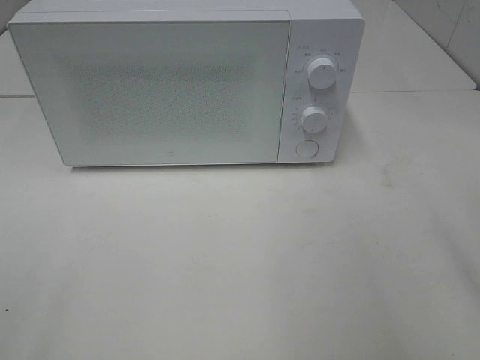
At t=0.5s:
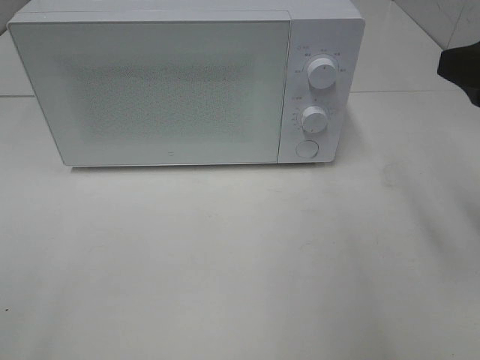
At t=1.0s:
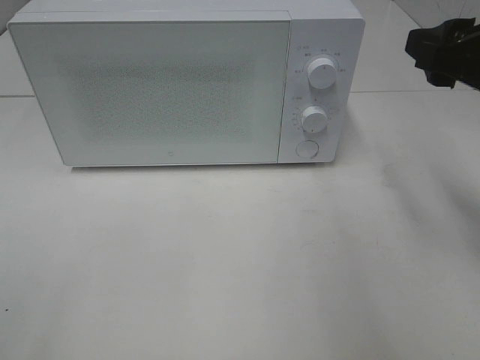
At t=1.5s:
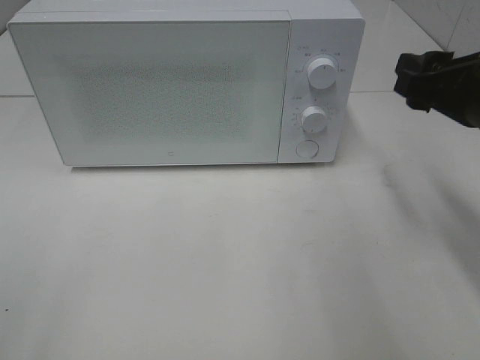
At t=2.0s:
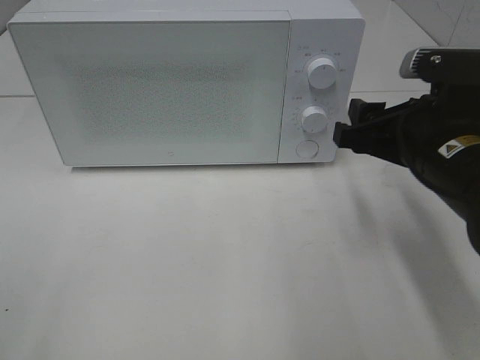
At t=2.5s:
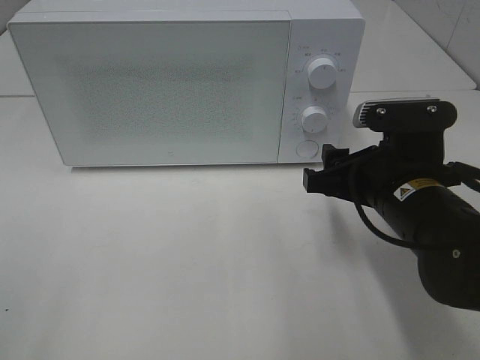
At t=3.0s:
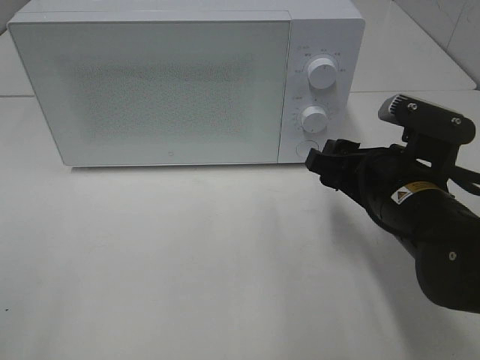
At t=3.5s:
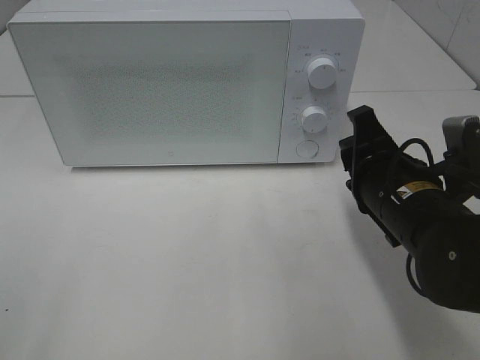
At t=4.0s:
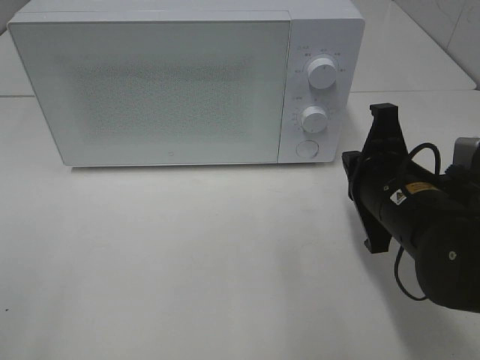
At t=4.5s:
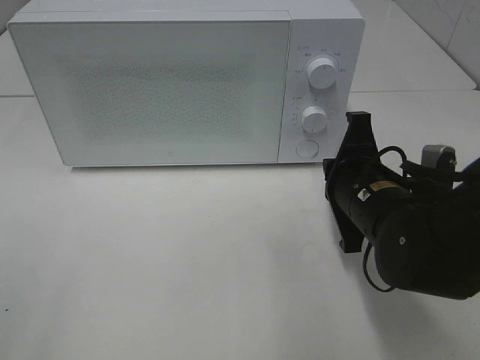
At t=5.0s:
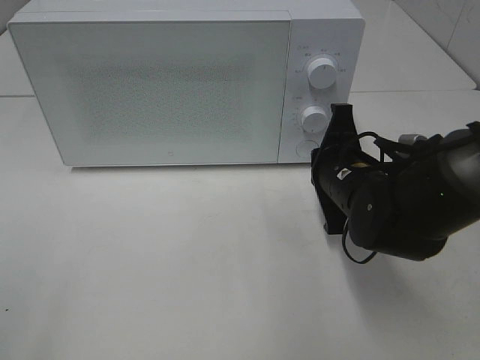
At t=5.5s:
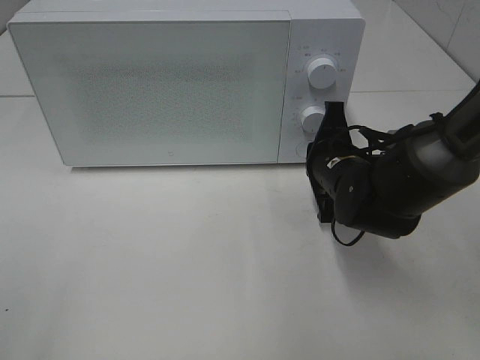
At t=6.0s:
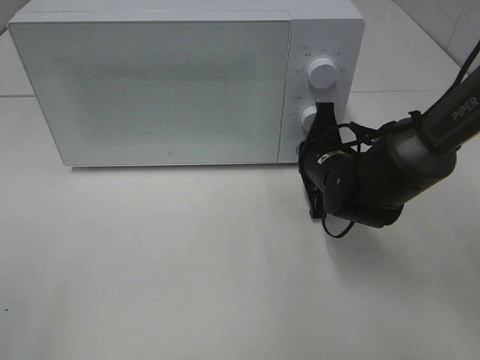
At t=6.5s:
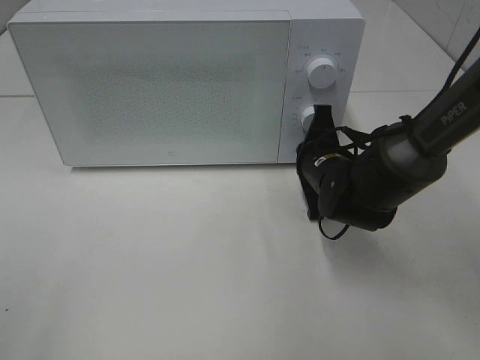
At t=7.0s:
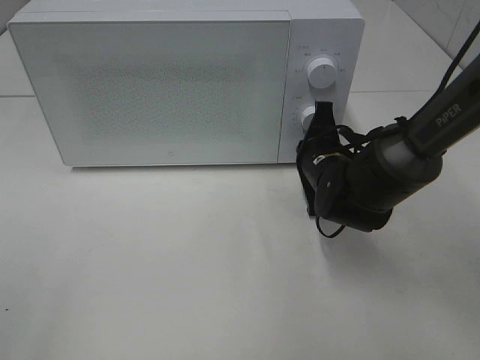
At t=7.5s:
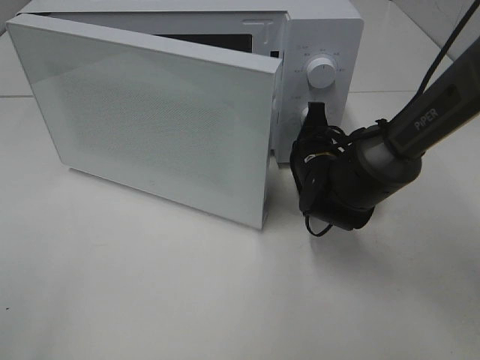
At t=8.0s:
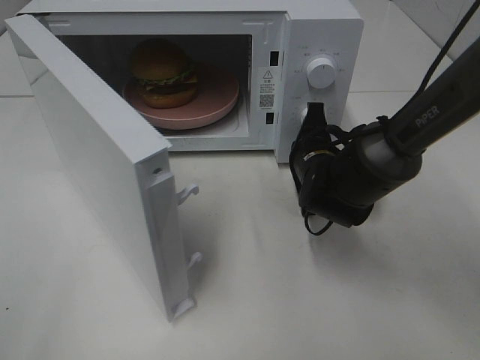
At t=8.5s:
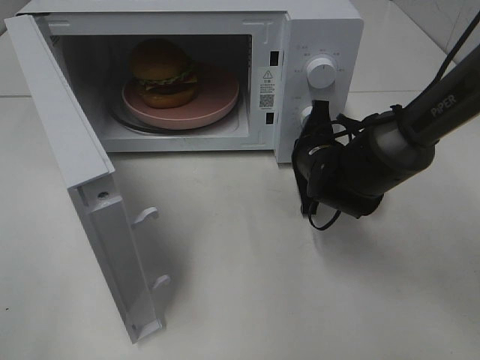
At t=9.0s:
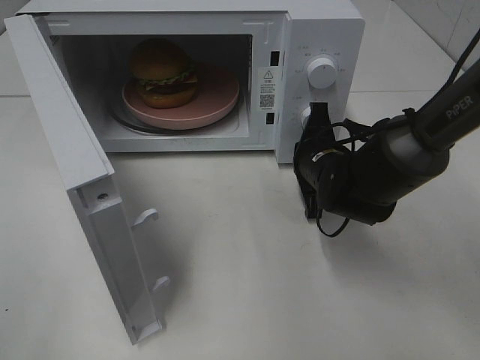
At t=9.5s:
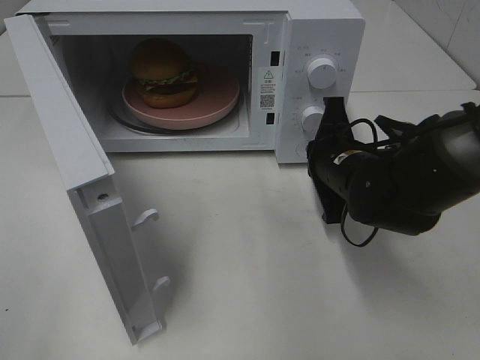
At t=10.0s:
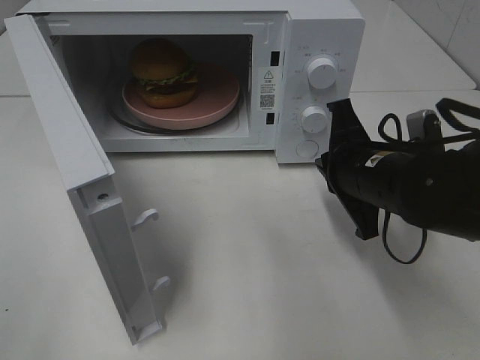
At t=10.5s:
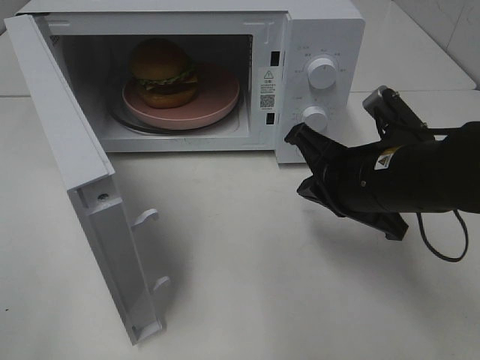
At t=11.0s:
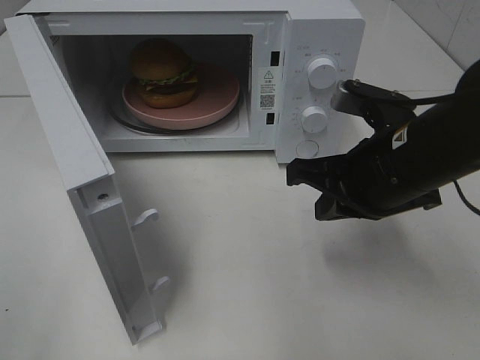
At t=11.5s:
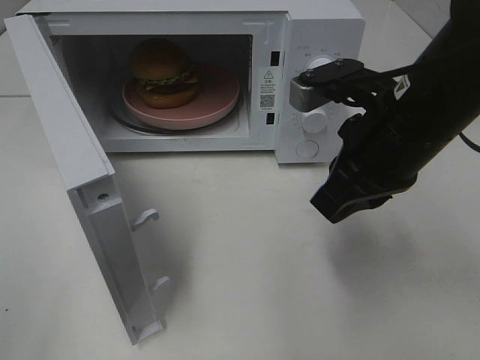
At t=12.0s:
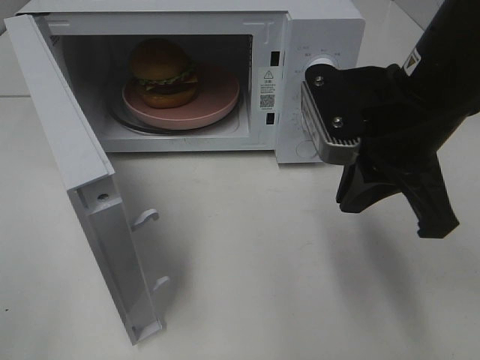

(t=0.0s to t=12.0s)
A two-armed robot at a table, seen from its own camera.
Task of the whole recording: Heat the burger.
Step, t=0.0s - t=9.5s: Right hand: press the switch.
t=0.0s - t=2.0s: The right gripper travels downward, forward and to the left by roughly 20 cm.
t=2.0s - t=4.0s: The right gripper changes place by some 5 cm, and closes its fingers.
t=4.0s - t=6.0s: The right gripper is displaced forward and downward by about 15 cm.
t=8.0s - t=10.0s: The right gripper moves backward and upward, about 10 cm.
t=10.0s - t=12.0s: The right gripper shifts some 10 cm upward.

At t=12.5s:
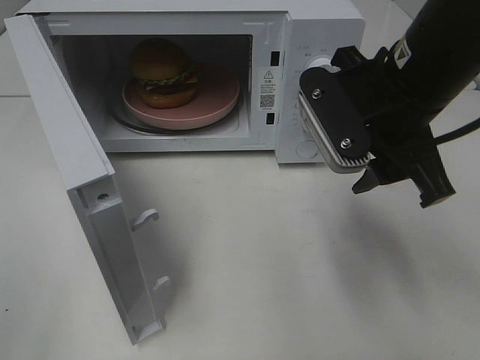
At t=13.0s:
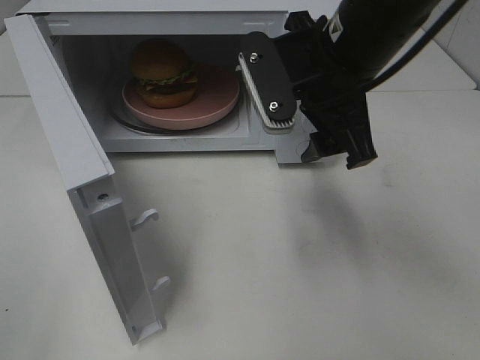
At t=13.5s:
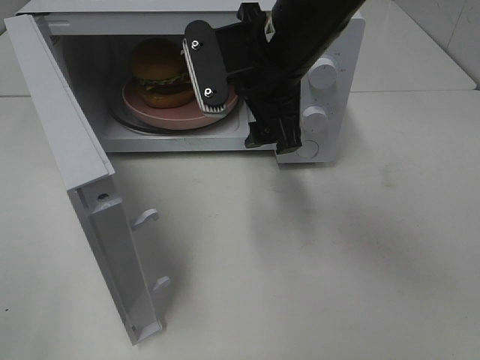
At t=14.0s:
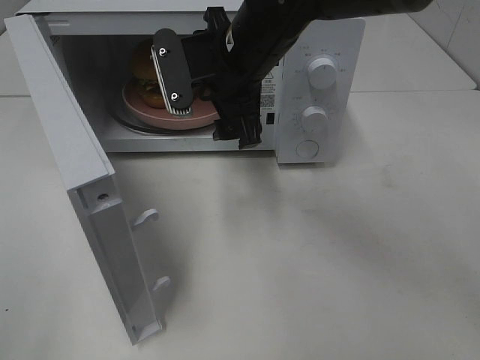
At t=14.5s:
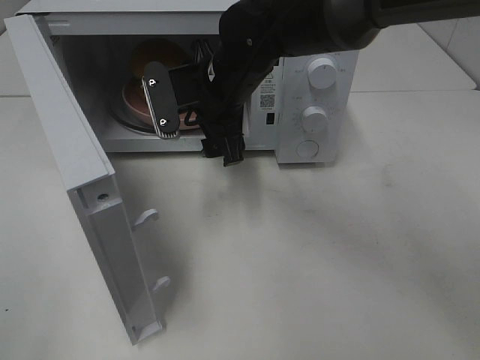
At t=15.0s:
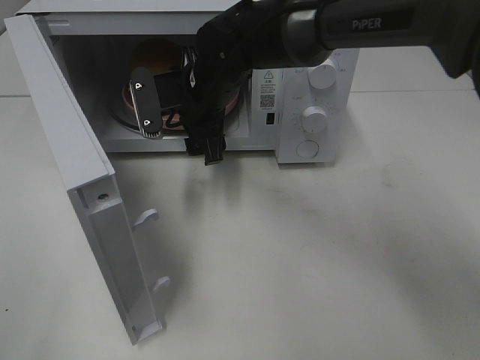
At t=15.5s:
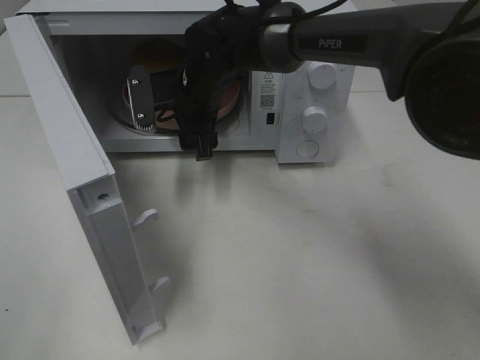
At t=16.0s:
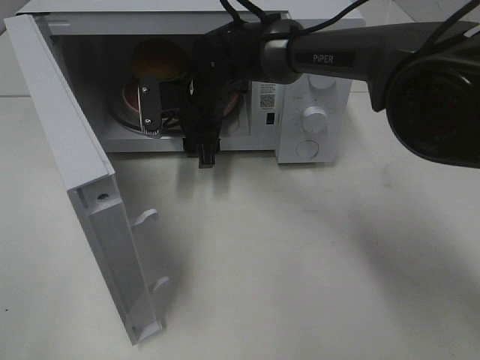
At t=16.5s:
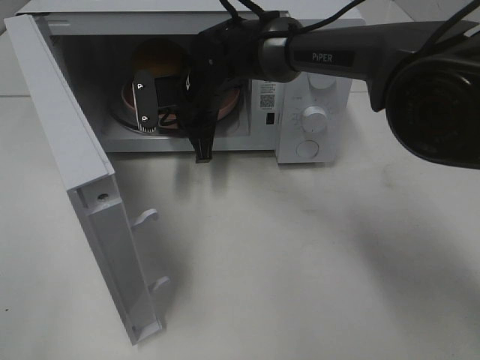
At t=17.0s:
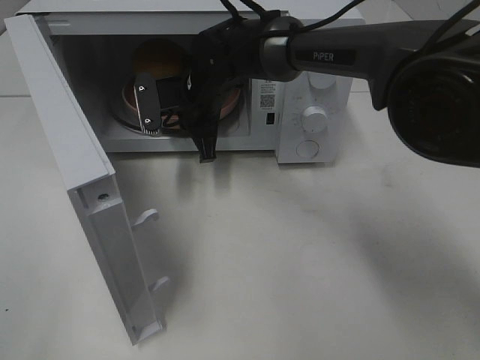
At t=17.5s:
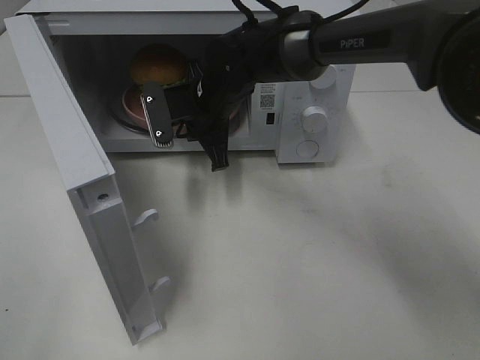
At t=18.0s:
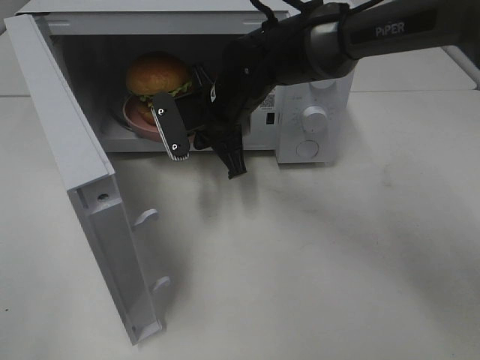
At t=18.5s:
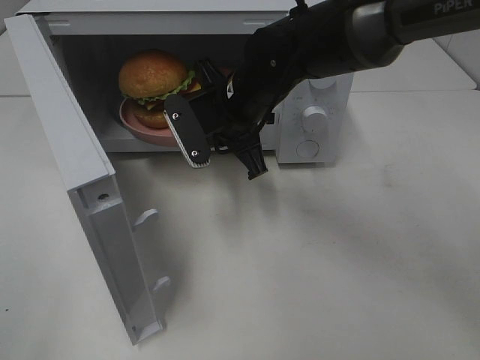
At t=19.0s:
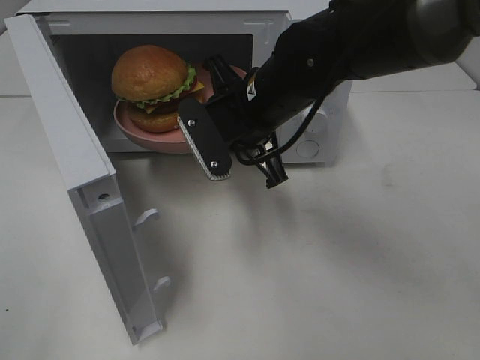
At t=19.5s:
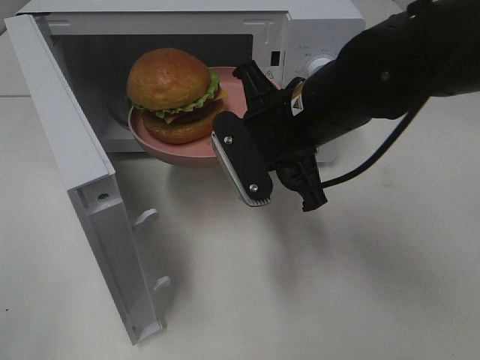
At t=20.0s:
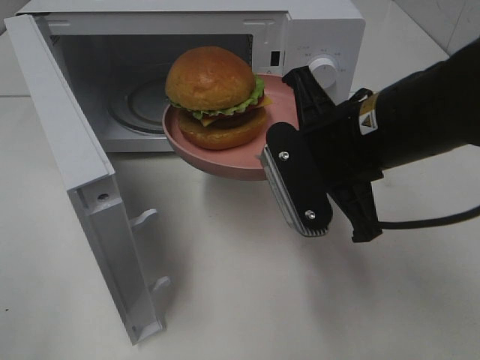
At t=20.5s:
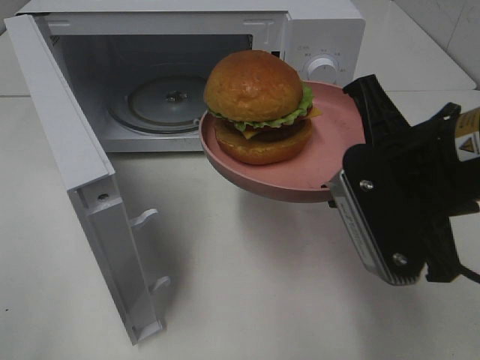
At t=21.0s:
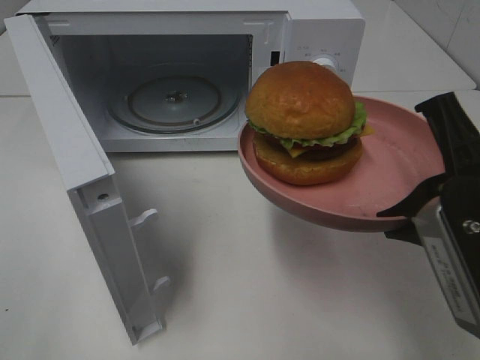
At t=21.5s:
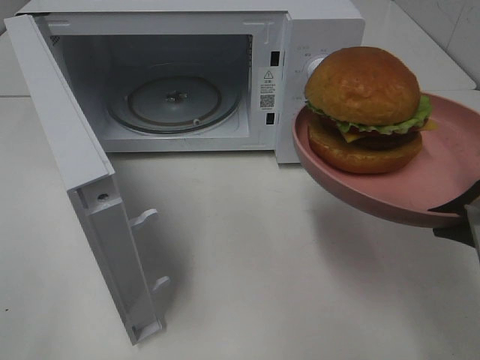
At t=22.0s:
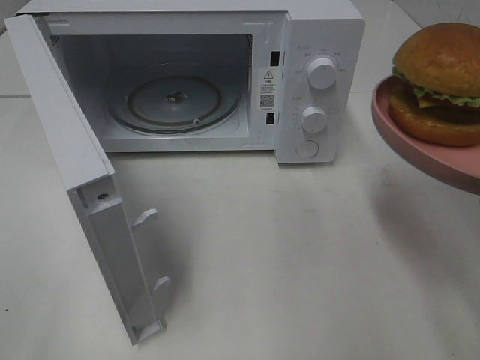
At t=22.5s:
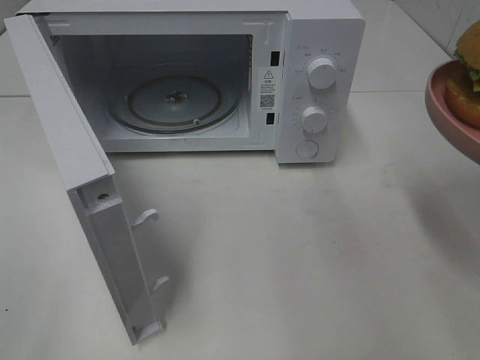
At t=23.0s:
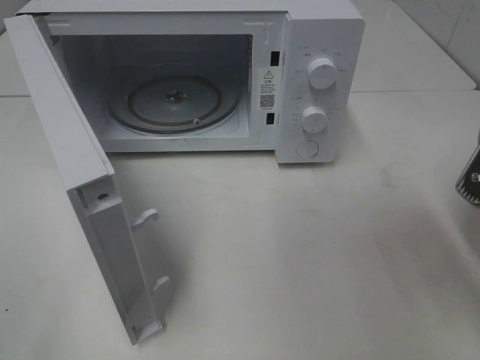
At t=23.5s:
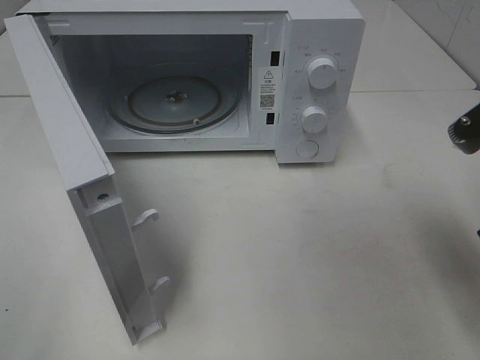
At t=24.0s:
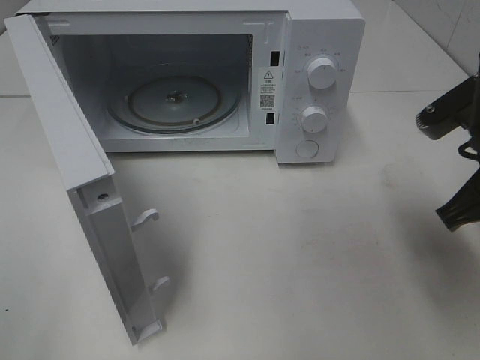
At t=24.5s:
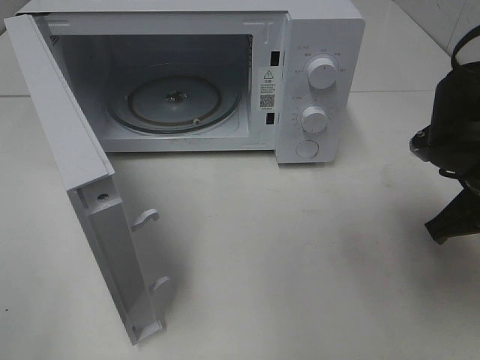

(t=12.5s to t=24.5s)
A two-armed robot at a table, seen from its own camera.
Task of the whole recording: Heat the burger.
Step, t=12.5s - t=17.0s: Right hand: grab the plate with the hamburger.
t=12.5s - t=14.5s: The right gripper moves to the left, forward and downward, about 20 cm.
t=14.5s - t=16.5s: The right gripper is displaced forward and downward by approximately 10 cm, and closes up.
t=16.5s - t=18.5s: The right gripper goes approximately 10 cm backward and to the right.
t=18.5s - t=20.5s: The right gripper is displaced backward and to the right by approximately 25 cm.
t=20.5s - t=22.5s: The right gripper heads to the right, covering some 10 cm.
t=22.5s - t=24.5s: The right gripper moves forward and downward, roughly 15 cm.

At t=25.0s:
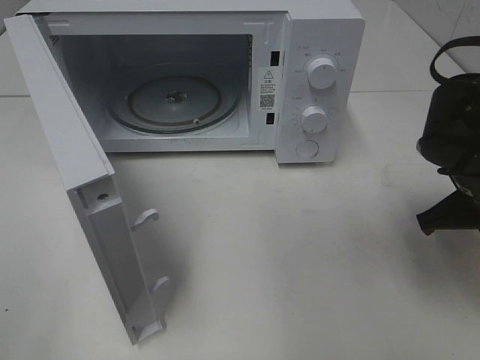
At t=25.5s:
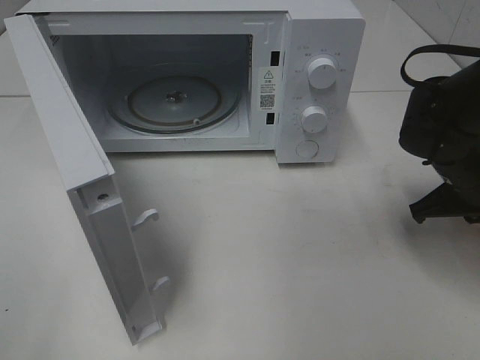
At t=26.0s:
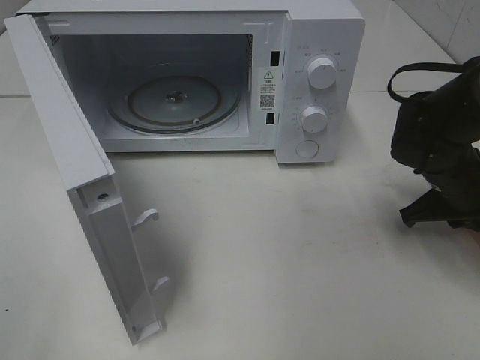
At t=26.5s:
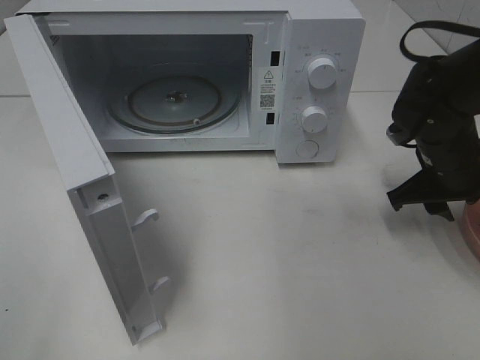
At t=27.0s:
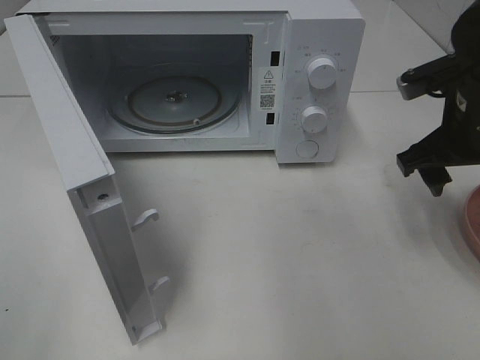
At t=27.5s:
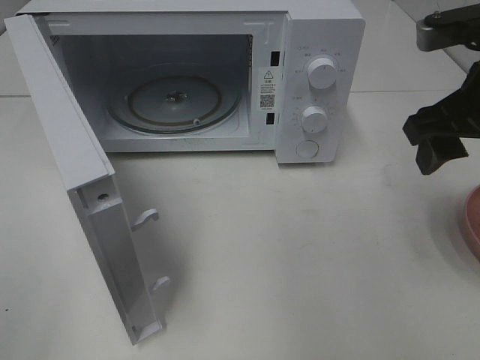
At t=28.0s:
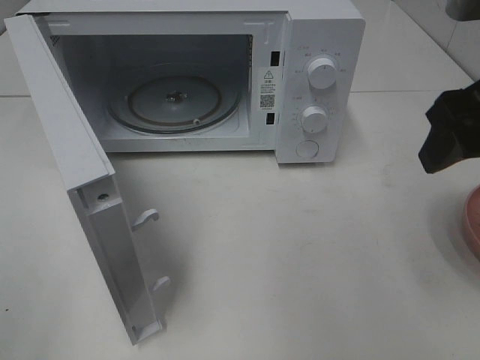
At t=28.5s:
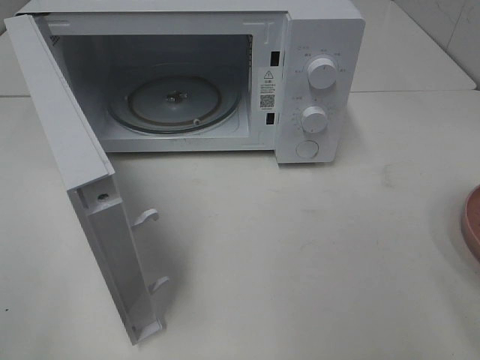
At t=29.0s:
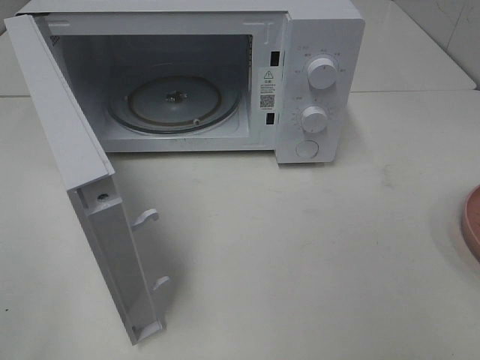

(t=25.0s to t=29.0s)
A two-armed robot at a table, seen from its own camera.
Task of the whole recording: Heat the burger.
t=25.0s - t=27.0s: The right gripper moves upward, about 5 cm, and opens up.
t=27.0s - t=29.0s: The right gripper is displaced backward by about 25 cm.
